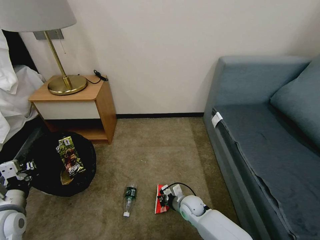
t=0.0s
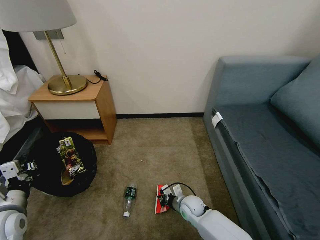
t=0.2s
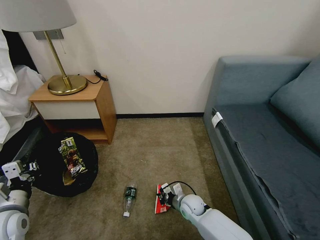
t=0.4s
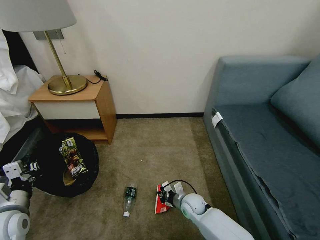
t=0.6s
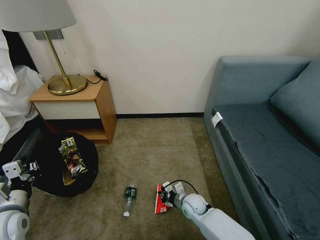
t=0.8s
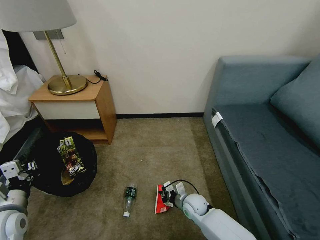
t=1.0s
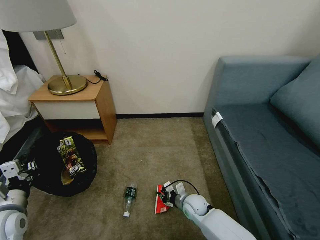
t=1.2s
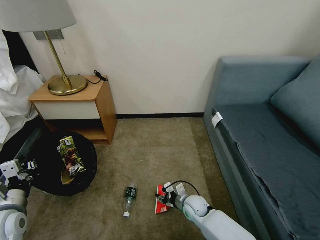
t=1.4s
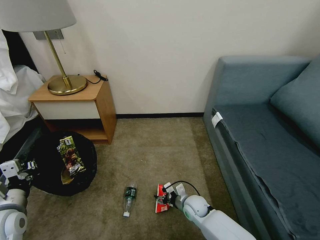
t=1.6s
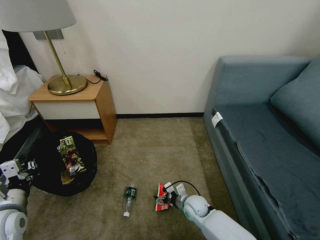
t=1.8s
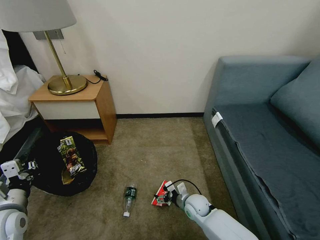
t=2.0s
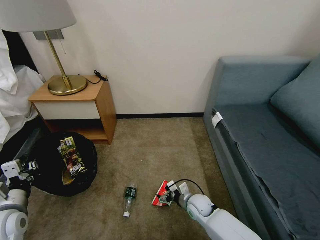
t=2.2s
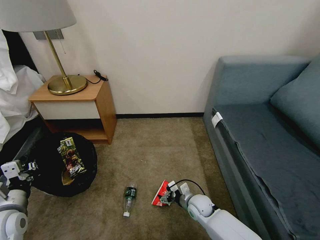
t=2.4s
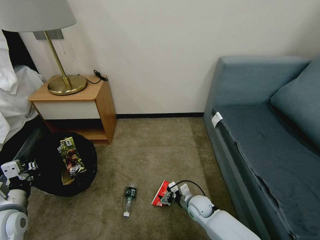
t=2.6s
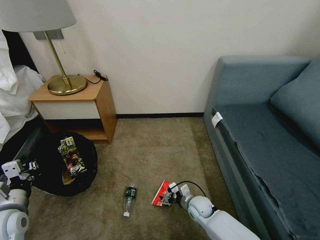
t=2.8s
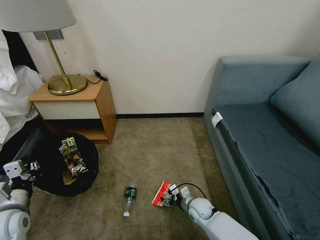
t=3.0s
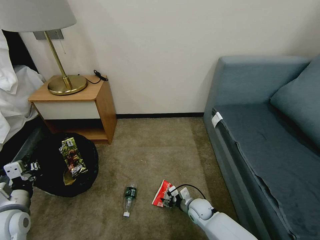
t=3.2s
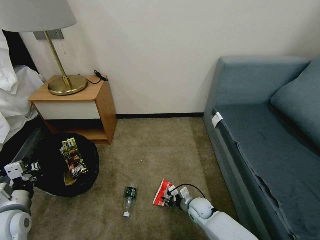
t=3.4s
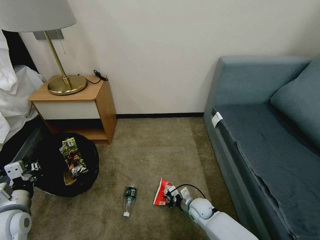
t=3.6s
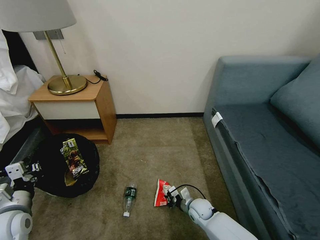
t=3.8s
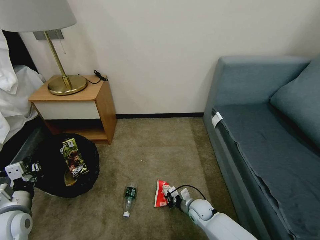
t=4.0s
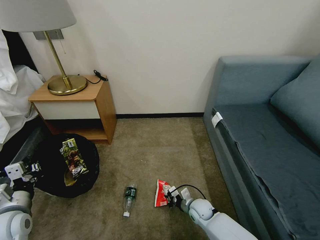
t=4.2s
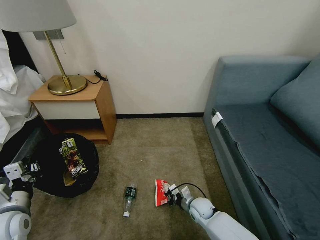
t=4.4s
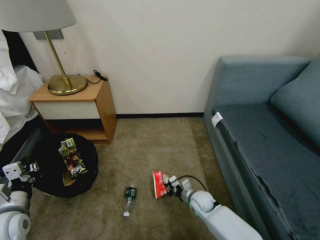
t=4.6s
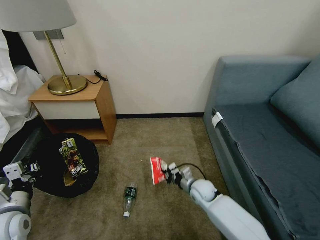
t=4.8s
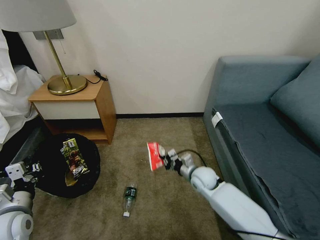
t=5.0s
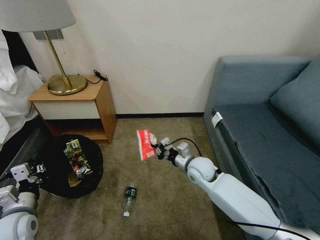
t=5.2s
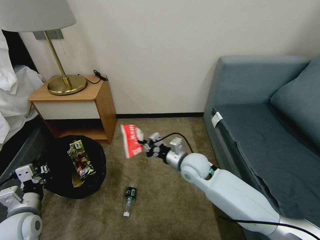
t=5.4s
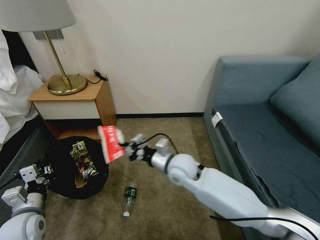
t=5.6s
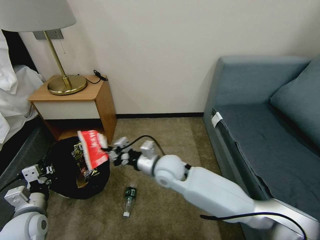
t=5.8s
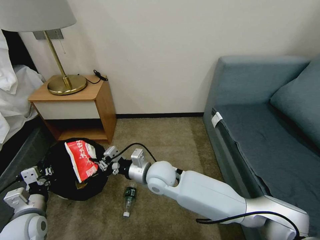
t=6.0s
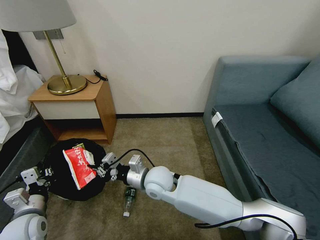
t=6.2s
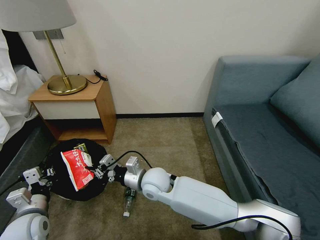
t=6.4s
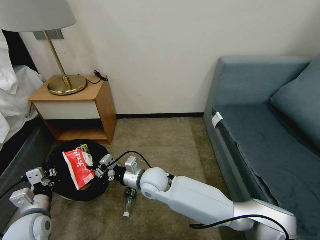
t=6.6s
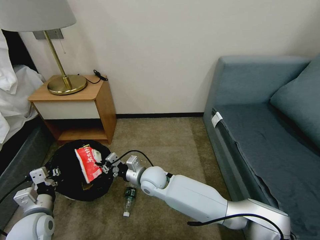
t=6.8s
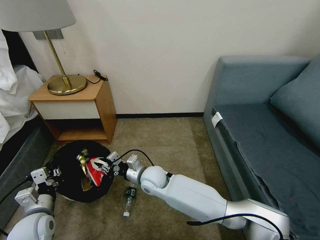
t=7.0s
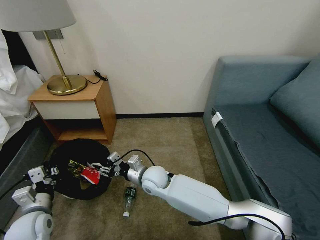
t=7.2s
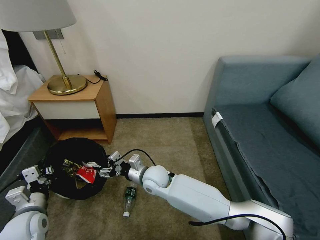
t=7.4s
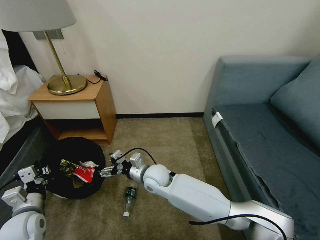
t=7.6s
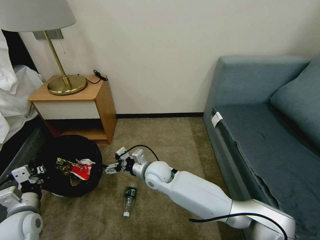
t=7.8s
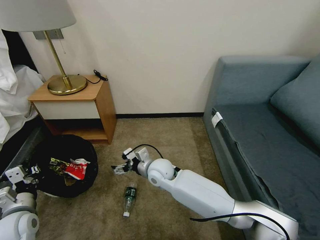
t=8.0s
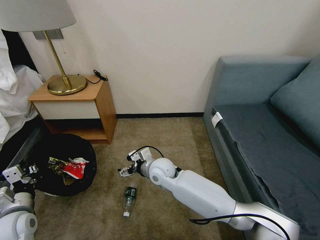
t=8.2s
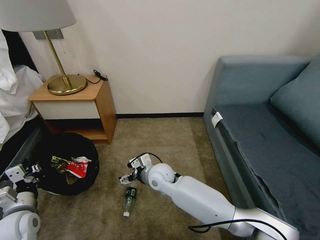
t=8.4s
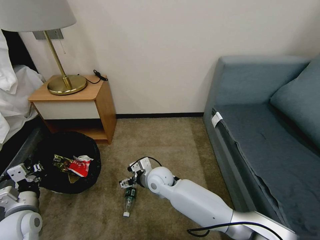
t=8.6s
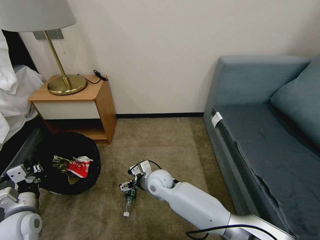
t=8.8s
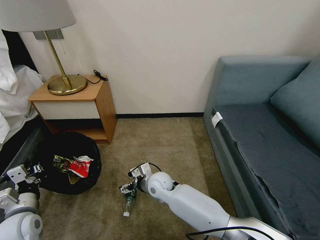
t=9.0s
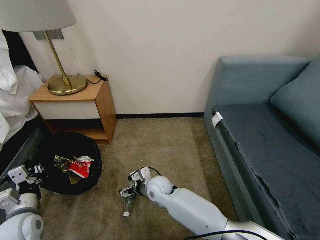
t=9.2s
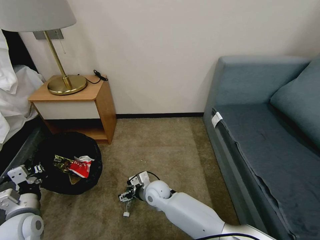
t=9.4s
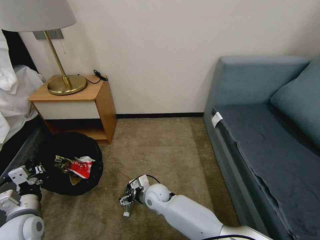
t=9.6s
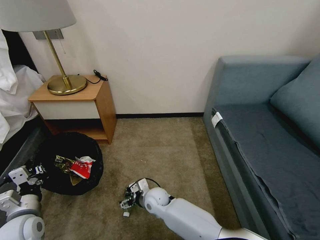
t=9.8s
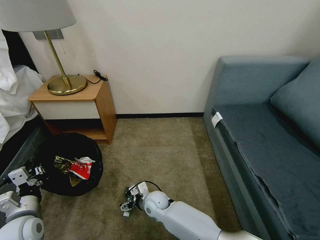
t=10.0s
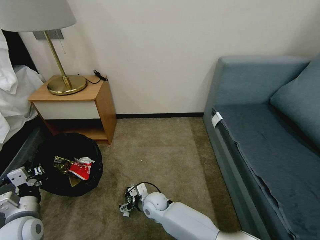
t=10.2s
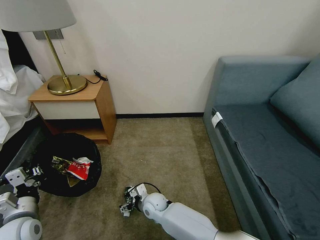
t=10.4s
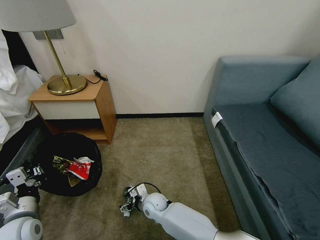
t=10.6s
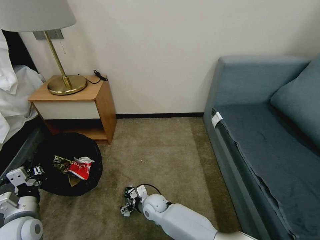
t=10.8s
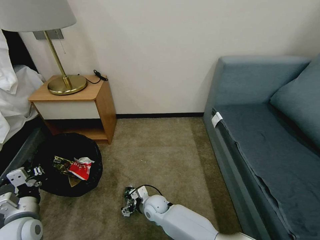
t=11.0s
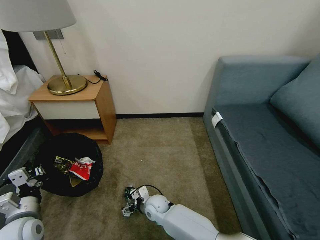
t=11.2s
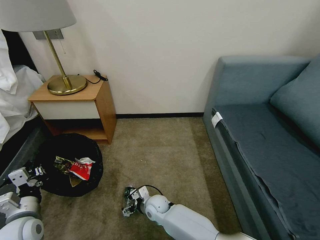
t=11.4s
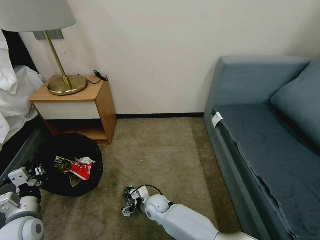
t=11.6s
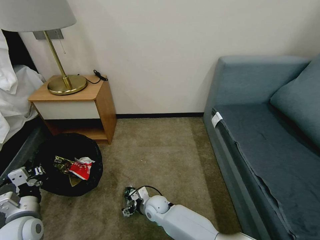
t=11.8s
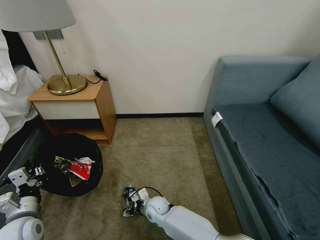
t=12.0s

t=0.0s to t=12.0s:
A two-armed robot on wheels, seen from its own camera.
Task of the whole recording: Pick up the trash bin, then pick up the garbage on the floor and place it into the trash bin.
t=0.0s to t=1.6s: The right gripper opens.
t=1.6s to t=3.0s: The grippers make only small movements.
t=4.4s to t=6.0s: The right gripper travels upward and to the left by approximately 30 cm.
t=6.0s to t=7.6s: The right gripper is displaced downward by about 5 cm, and opens up.
t=9.0s to t=10.4s: The right gripper heads downward, covering approximately 10 cm.
t=10.4s to t=12.0s: The grippers stay close to where they were, moving slightly.

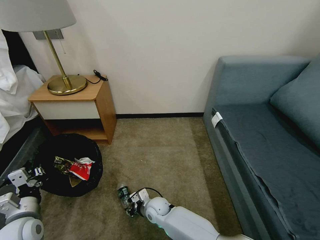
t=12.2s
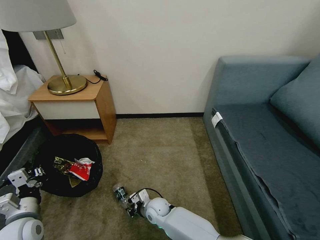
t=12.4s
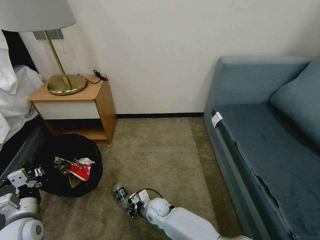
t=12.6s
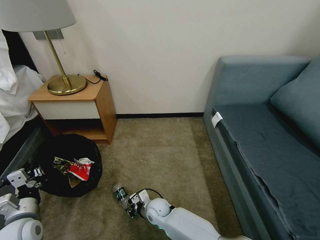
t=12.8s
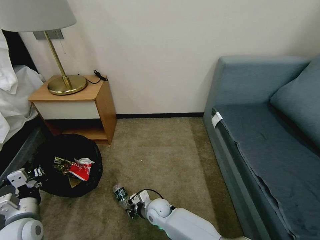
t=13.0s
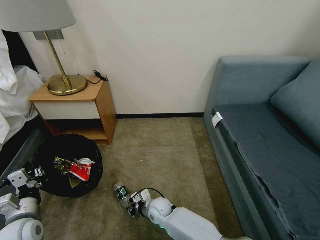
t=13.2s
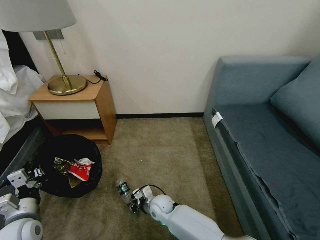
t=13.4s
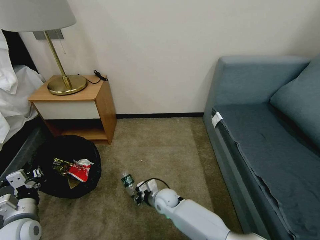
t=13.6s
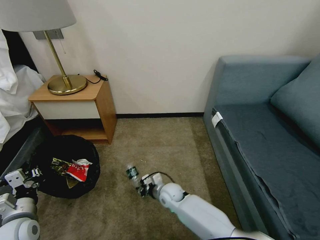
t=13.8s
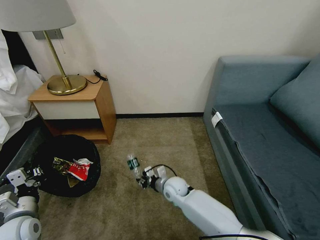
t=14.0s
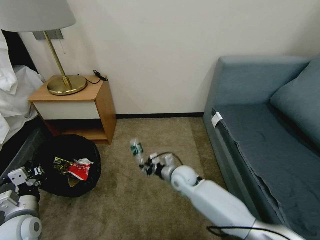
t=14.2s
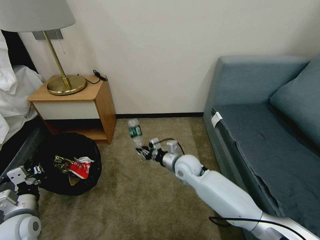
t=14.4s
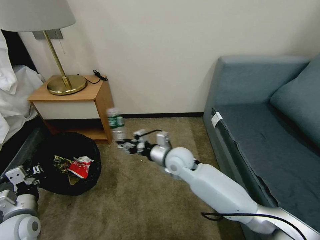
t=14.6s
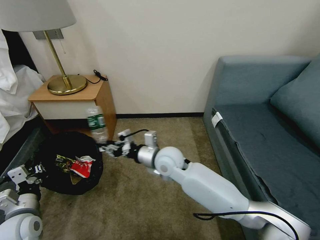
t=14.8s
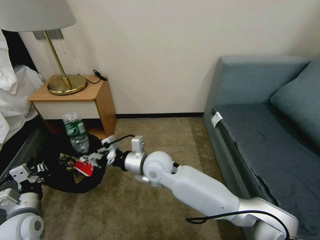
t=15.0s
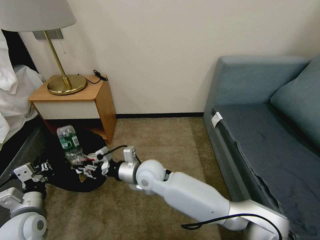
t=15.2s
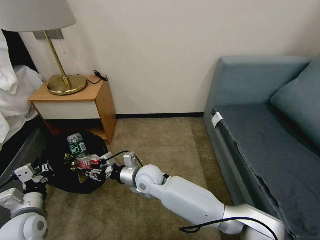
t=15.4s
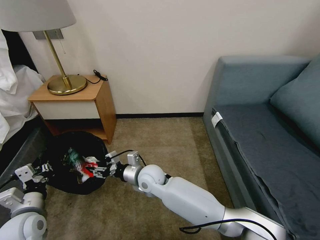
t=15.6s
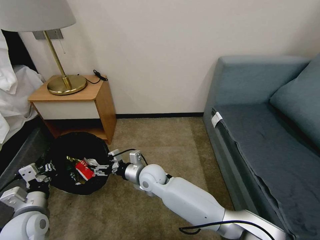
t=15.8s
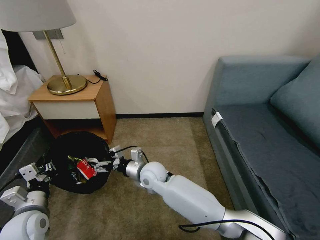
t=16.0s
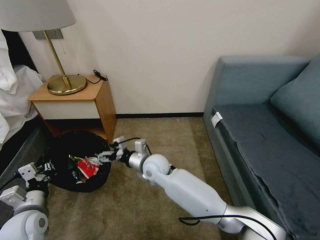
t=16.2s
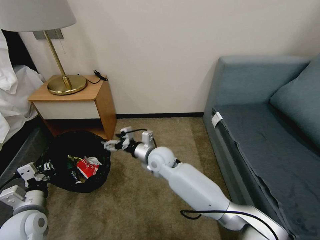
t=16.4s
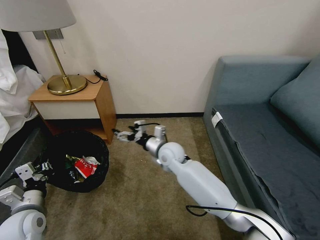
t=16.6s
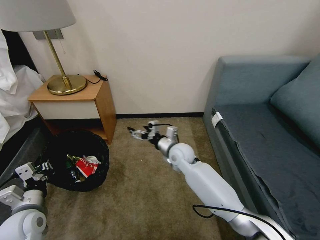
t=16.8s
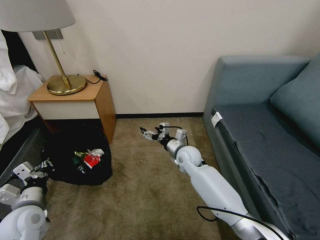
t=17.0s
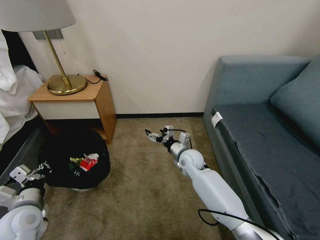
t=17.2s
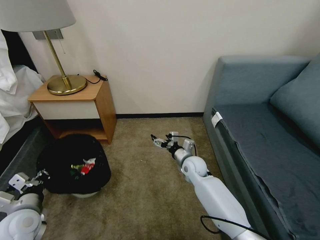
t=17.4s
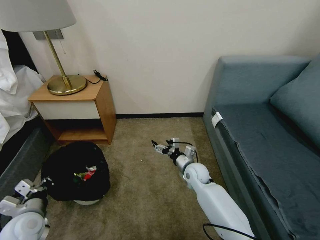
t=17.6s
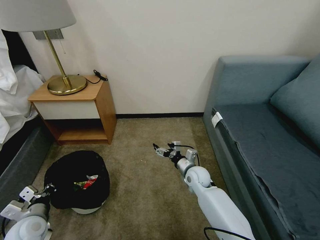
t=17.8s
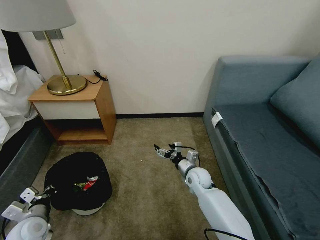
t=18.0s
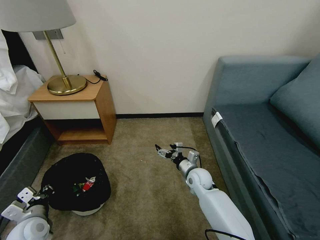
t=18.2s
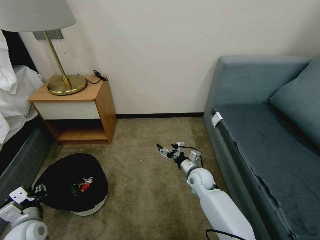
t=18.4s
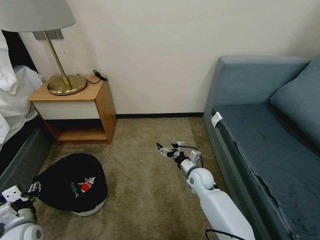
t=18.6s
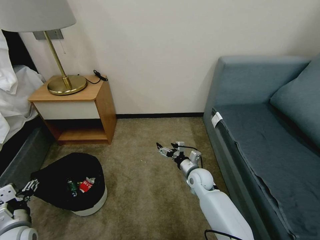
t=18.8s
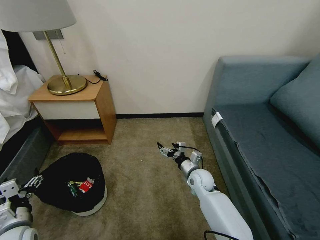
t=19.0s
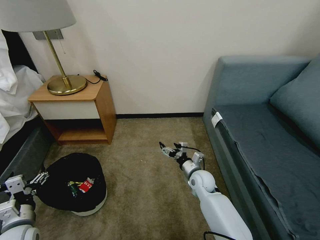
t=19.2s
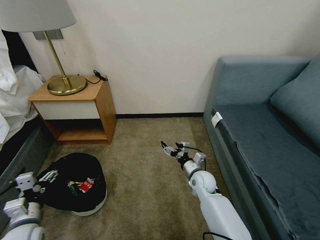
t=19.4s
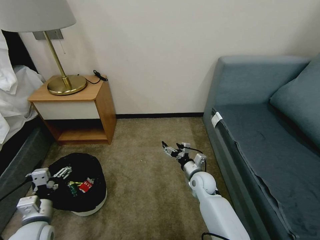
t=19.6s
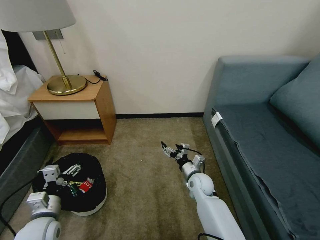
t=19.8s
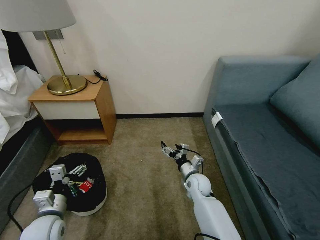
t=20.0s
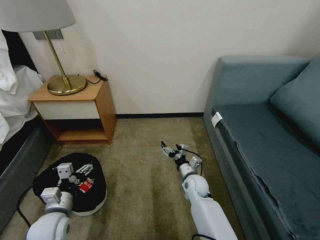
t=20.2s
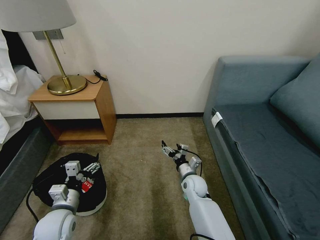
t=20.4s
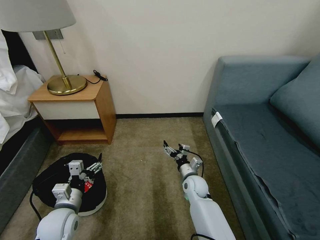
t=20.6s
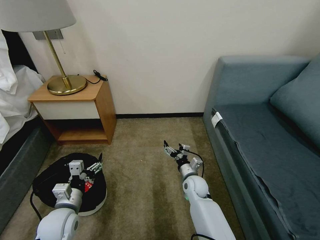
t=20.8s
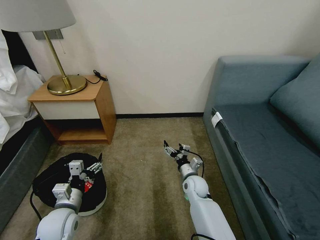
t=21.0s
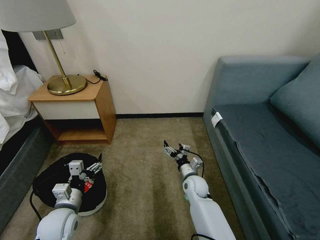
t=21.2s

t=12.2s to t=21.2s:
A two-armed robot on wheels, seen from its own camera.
Task of the whole recording: Pick up the trash bin, then pick up the garbage on the floor and place it into the trash bin.
t=12.2s to t=13.8s: The right gripper travels to the right by approximately 5 cm.
t=13.8s to t=15.2s: The right gripper shifts some 20 cm upward.
t=15.2s to t=16.6s: The right gripper shifts about 10 cm forward and to the right, and opens its fingers.
t=16.6s to t=18.2s: The left gripper is displaced downward by approximately 5 cm. Meanwhile the right gripper heads to the right and downward, covering about 15 cm.
t=18.2s to t=19.8s: The left gripper shifts about 5 cm to the right, and opens.
t=19.8s to t=21.2s: The left gripper ends up approximately 5 cm from where it was.

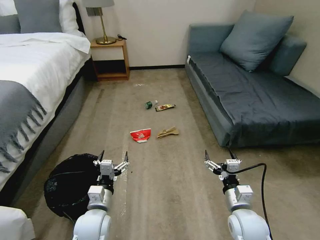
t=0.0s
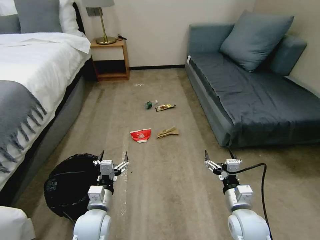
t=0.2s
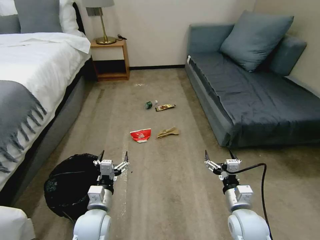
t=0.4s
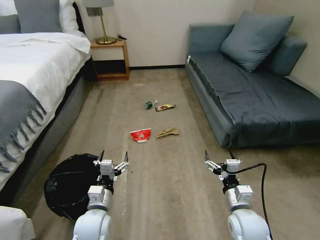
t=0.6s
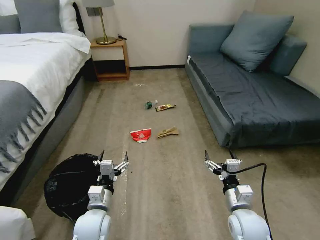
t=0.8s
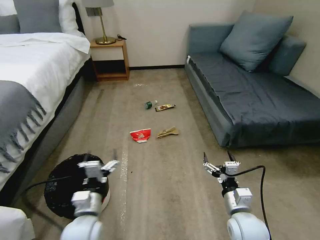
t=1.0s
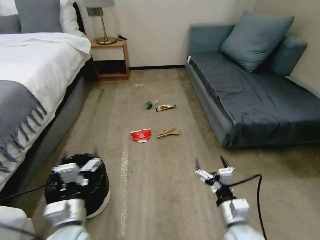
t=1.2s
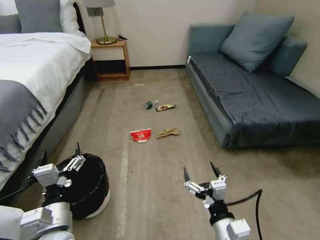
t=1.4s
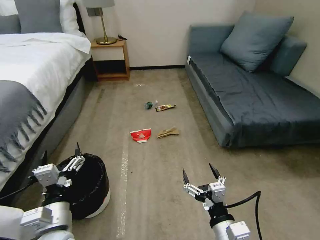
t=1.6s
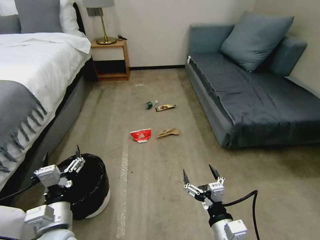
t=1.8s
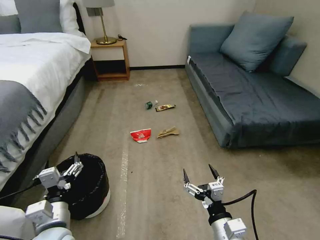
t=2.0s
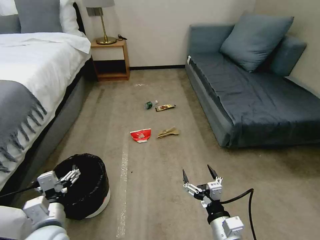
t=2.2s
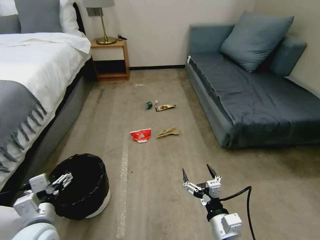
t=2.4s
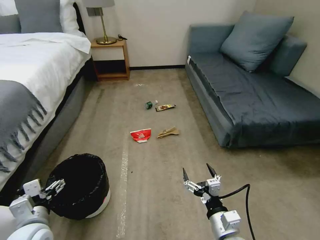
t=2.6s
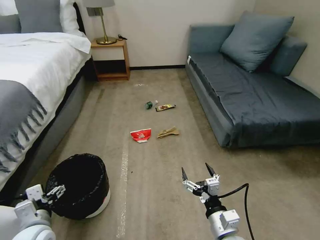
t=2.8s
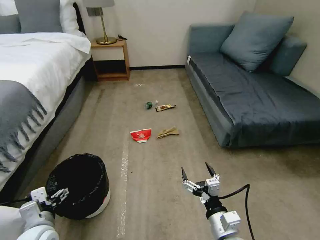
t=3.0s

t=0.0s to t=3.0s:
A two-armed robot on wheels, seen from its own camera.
Task of the whole recording: Pick up the trash bin, then pick up the garbage on the floor and place it into the trash bin.
t=1.6s to t=3.0s: The left gripper moves to the left and downward, approximately 10 cm. The right gripper ends up roughly 5 cm from where it was.
